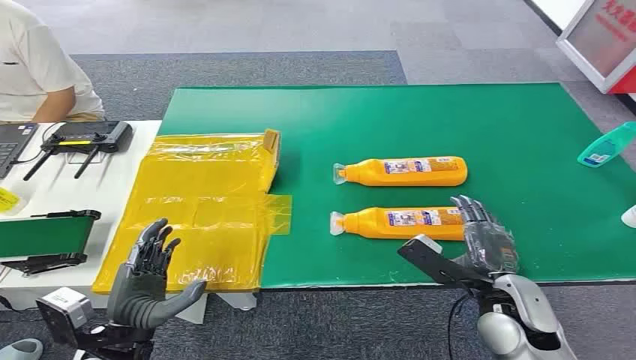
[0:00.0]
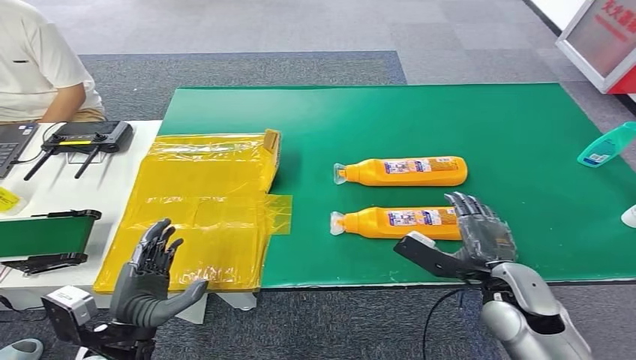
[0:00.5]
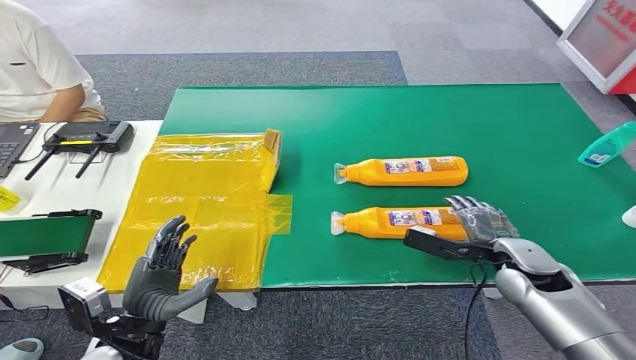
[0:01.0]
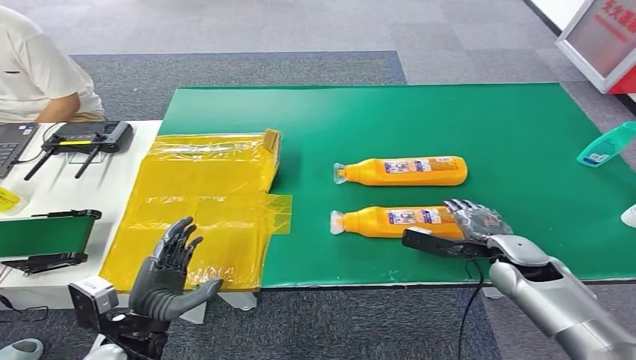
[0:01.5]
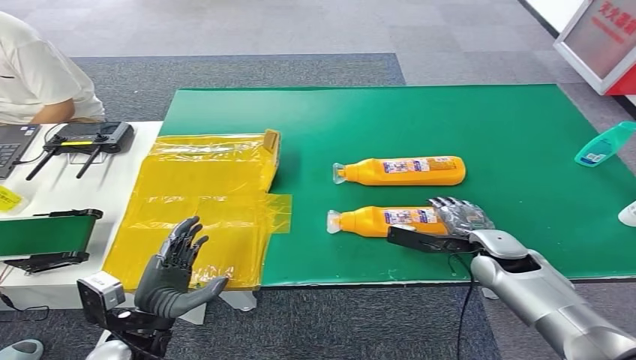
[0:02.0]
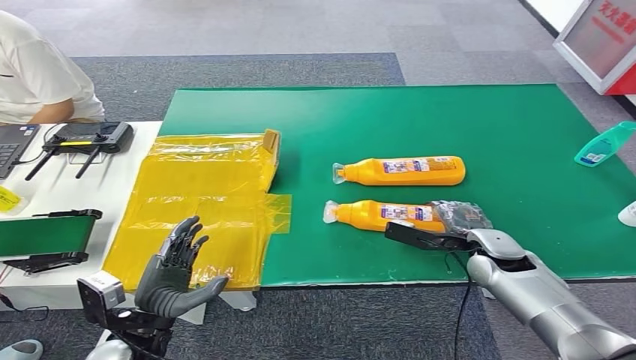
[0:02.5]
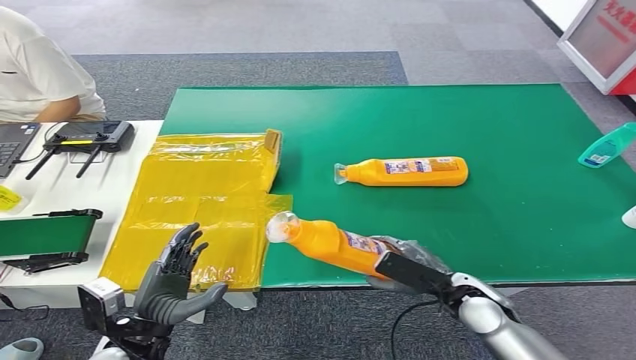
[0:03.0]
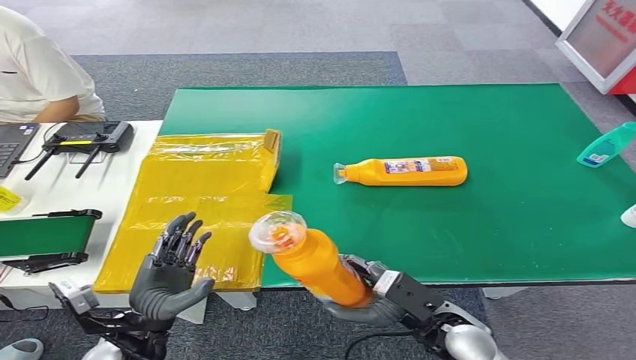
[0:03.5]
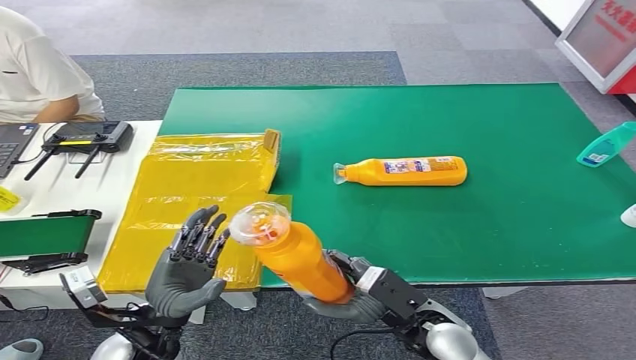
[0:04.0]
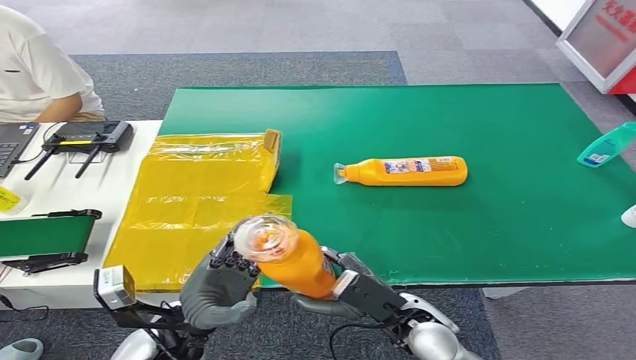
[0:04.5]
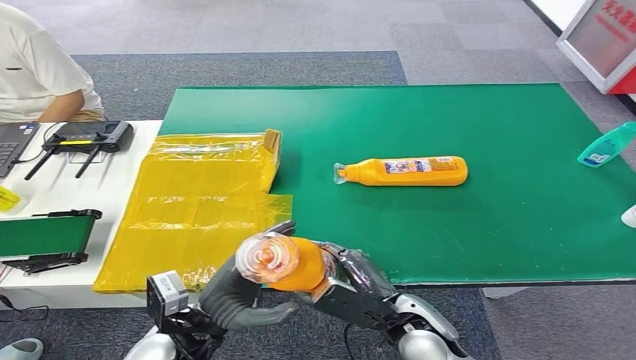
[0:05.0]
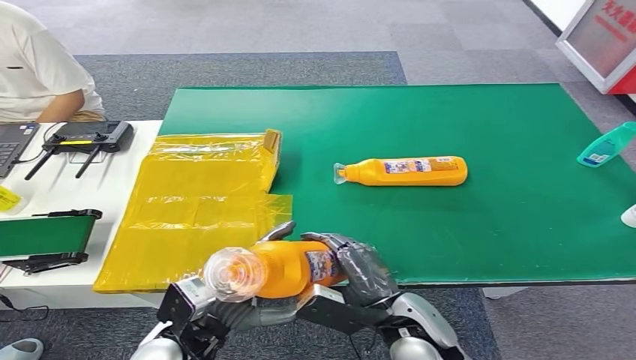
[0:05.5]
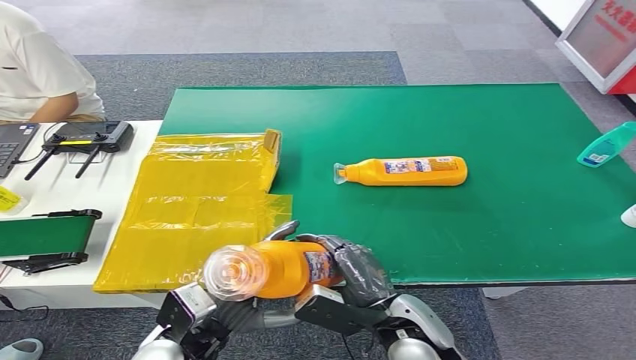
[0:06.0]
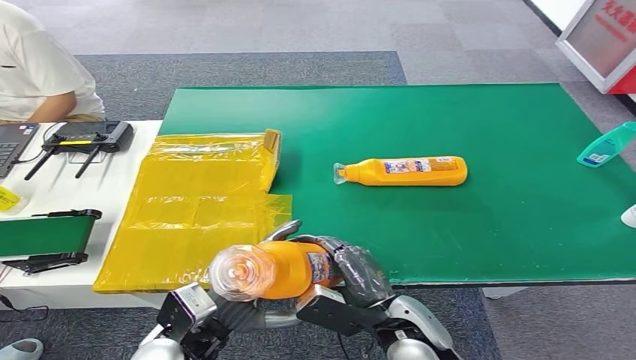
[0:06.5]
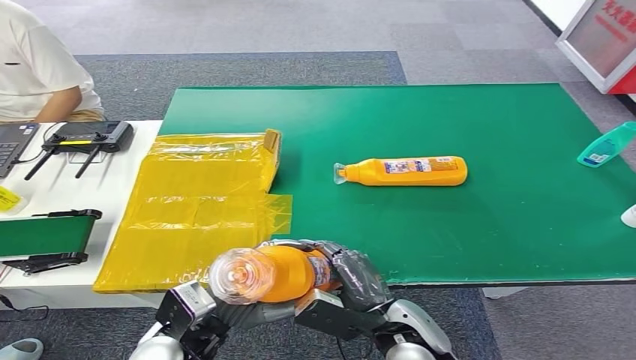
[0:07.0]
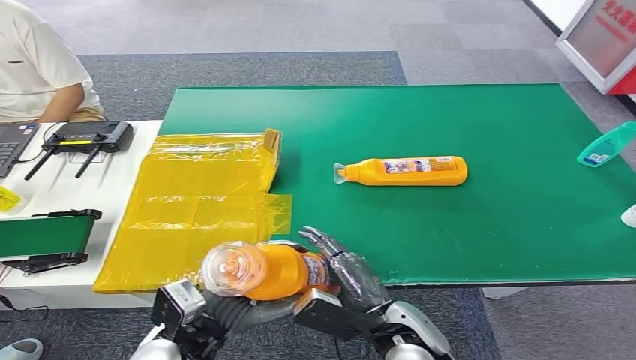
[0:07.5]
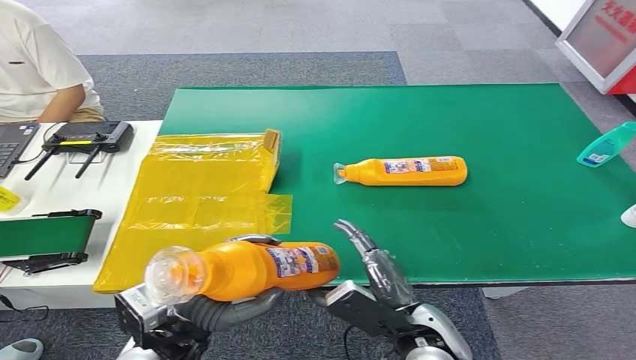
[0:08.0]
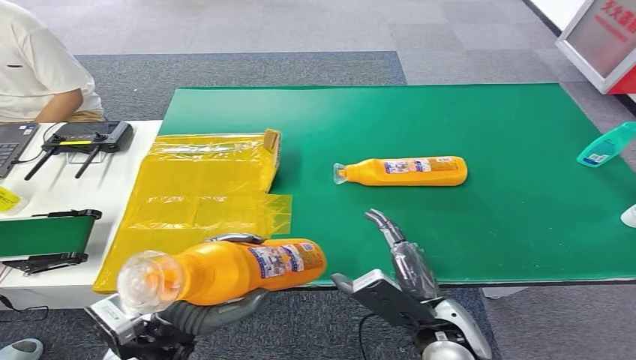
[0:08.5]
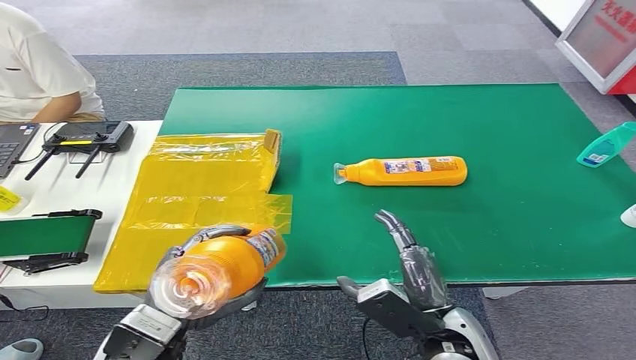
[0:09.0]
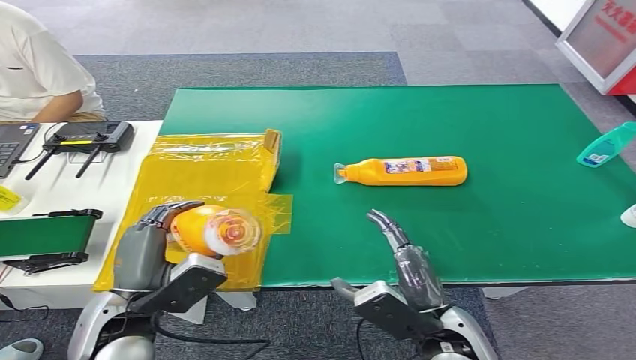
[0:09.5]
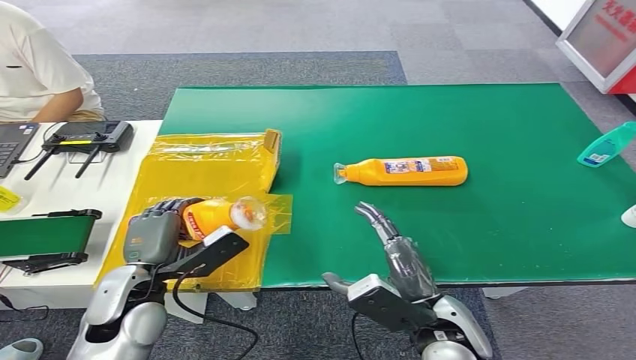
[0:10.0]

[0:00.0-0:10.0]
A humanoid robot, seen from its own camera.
Step, 0:00.0 to 0:03.5: Pick up the bottle from the table.
0:02.0 to 0:04.0: The right hand shifts roughly 20 cm backward and to the left.
0:04.0 to 0:06.0: The left hand travels to the right by approximately 5 cm.
0:06.0 to 0:08.0: There are only small adjustments of the hands.
0:08.0 to 0:10.0: The left hand is displaced forward and to the left by roughly 10 cm.

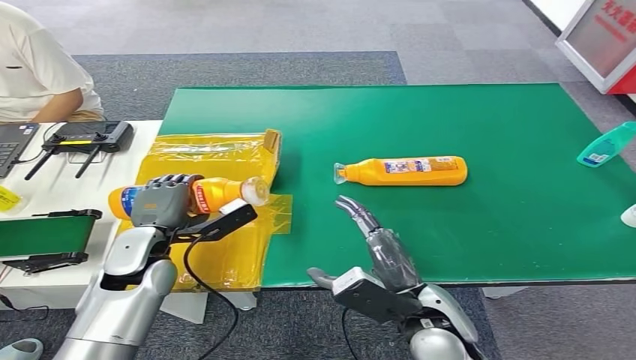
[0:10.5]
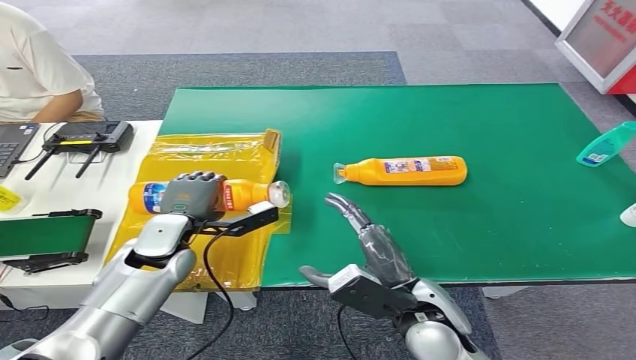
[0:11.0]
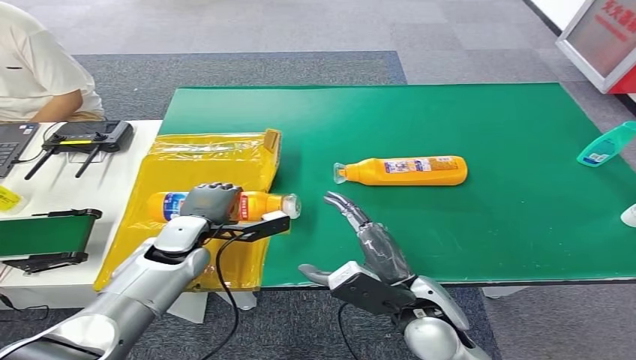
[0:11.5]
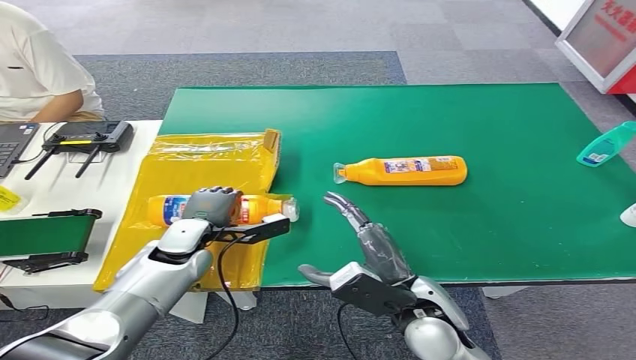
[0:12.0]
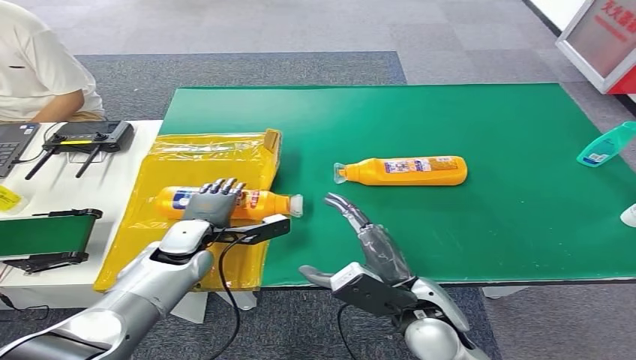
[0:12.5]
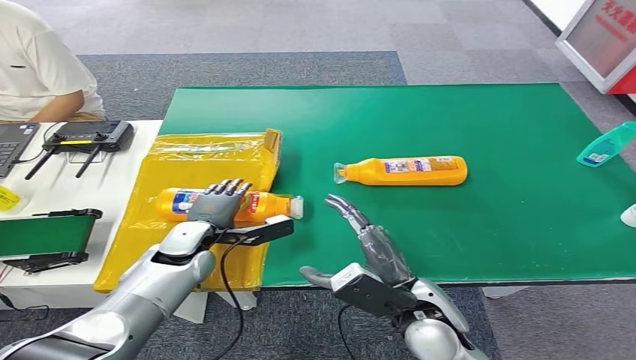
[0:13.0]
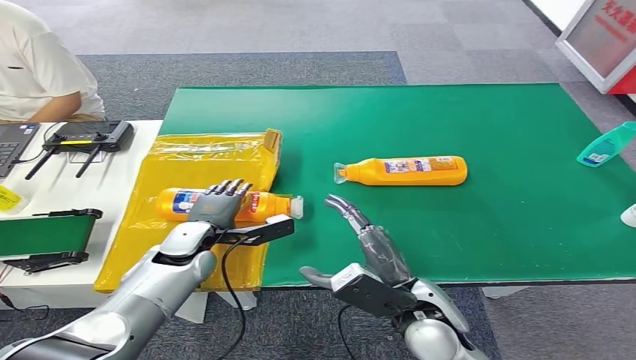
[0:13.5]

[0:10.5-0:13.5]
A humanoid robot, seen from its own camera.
Step, 0:10.5 to 0:13.5: Turn the bottle to the front side.
0:10.5 to 0:12.0: The left hand ends up some 10 cm from where it was.
0:12.0 to 0:13.5: The hands make only small movements.

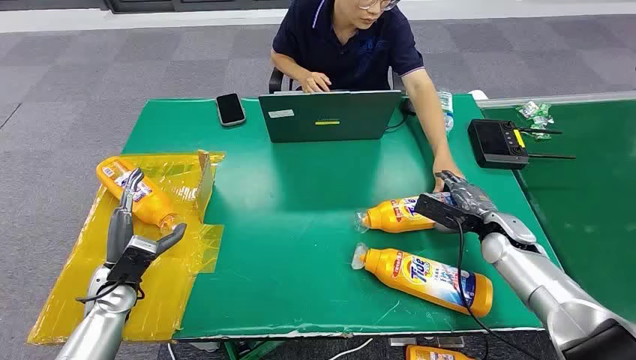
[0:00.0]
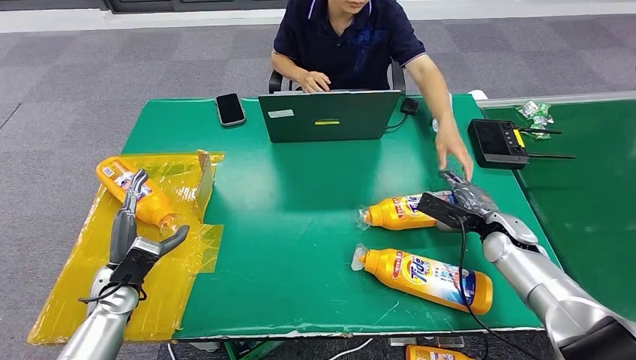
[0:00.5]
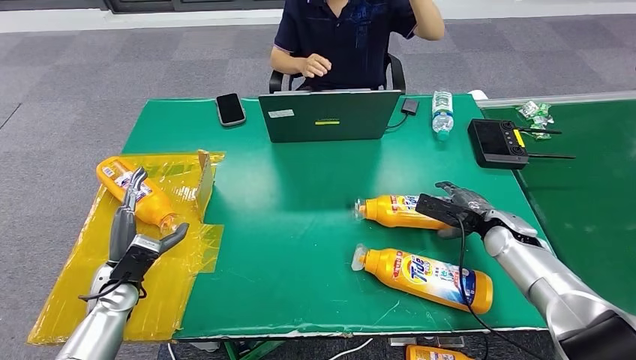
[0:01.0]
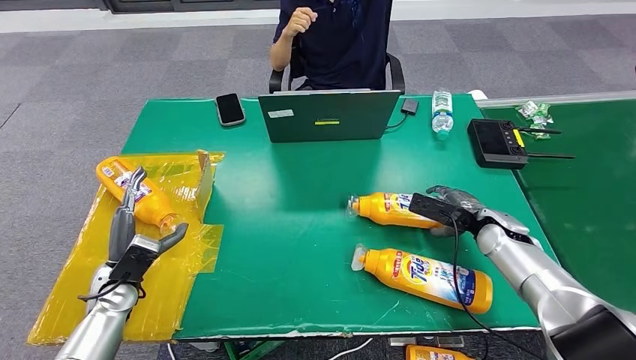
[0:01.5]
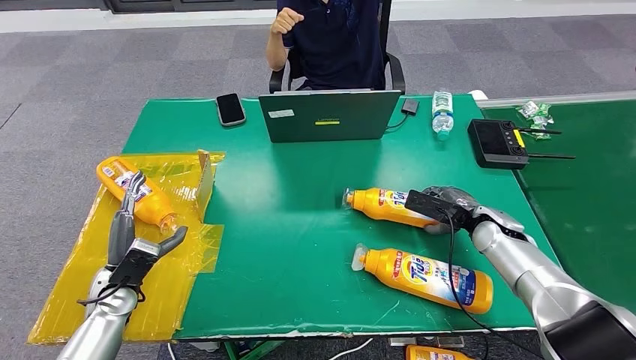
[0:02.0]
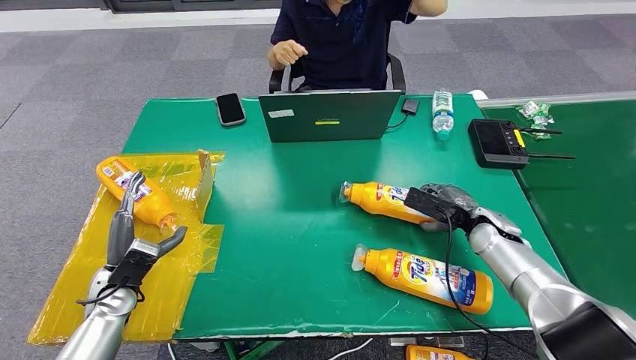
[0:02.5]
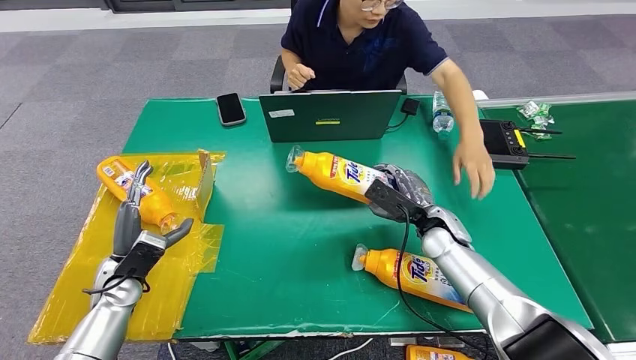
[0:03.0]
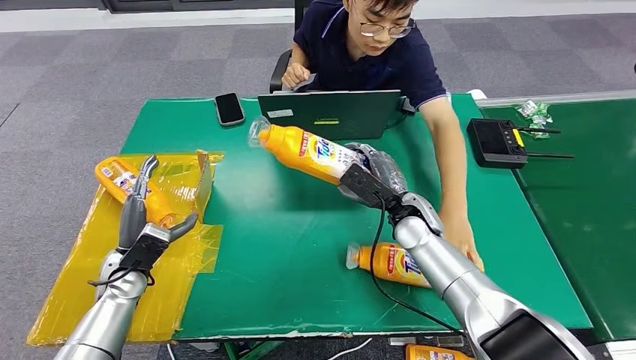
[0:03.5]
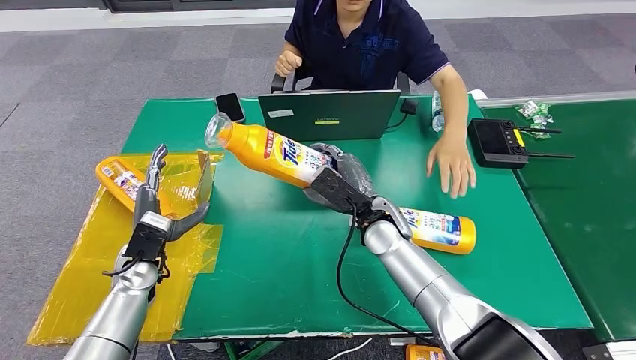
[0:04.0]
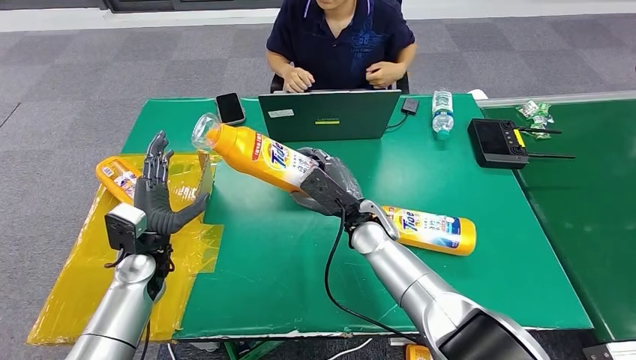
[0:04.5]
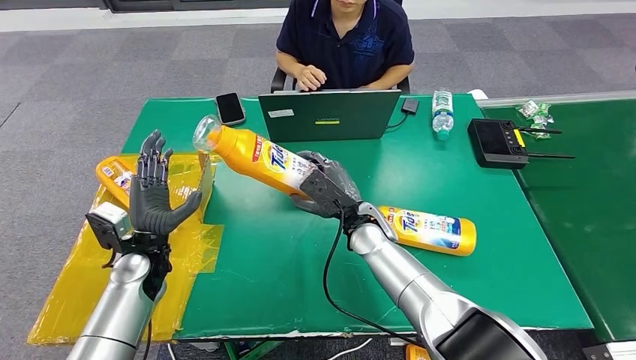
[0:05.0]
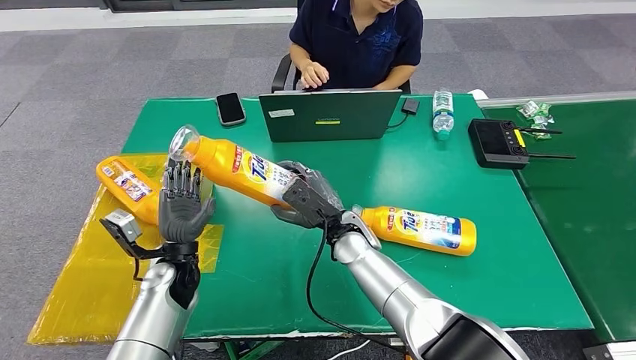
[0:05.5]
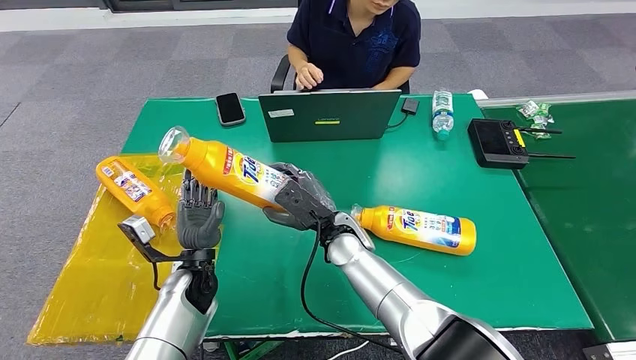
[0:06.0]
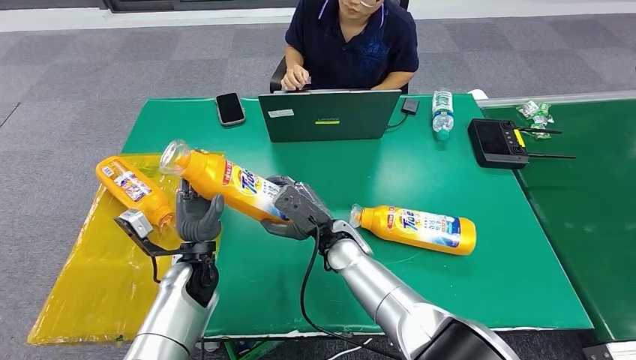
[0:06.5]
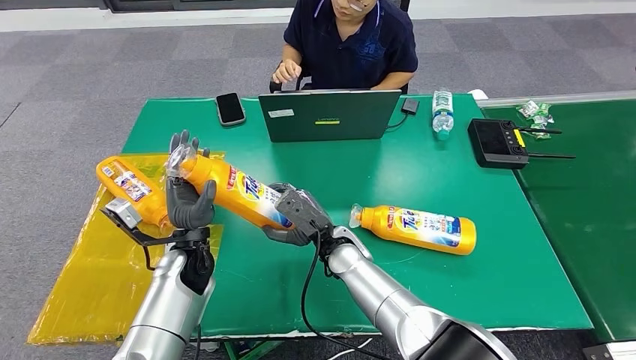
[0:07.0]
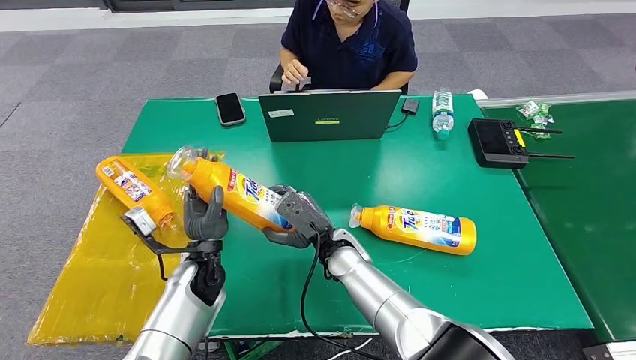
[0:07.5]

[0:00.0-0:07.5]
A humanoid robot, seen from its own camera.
Step, 0:00.0 to 0:02.5: Pick up the bottle from the table.
0:05.5 to 0:07.5: The hands stay close to where they were, moving slightly.
